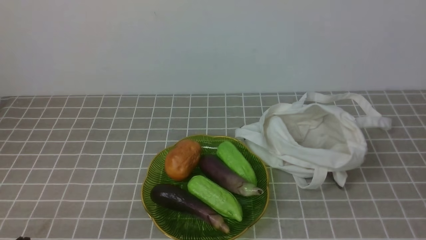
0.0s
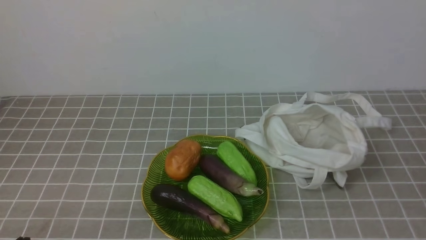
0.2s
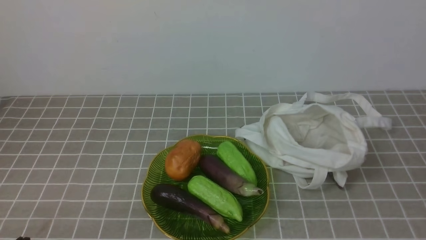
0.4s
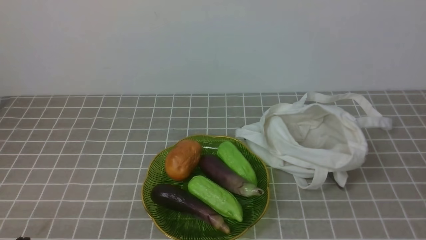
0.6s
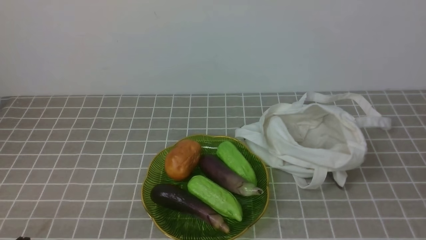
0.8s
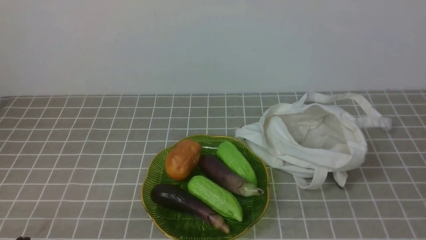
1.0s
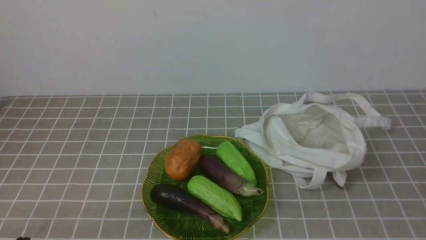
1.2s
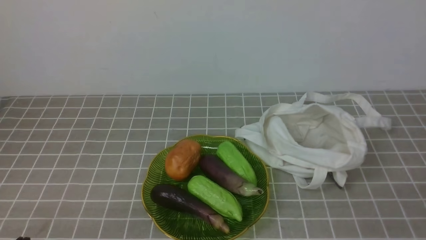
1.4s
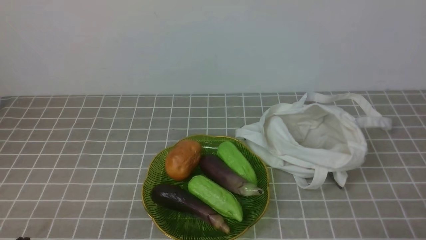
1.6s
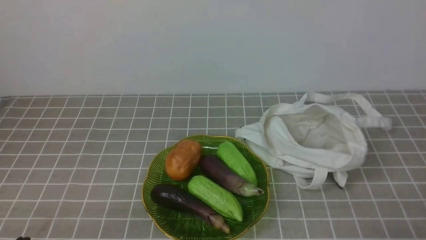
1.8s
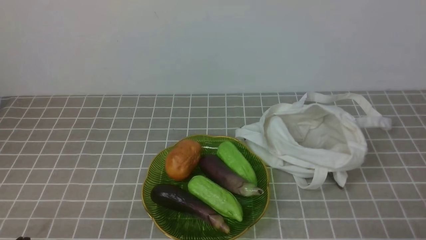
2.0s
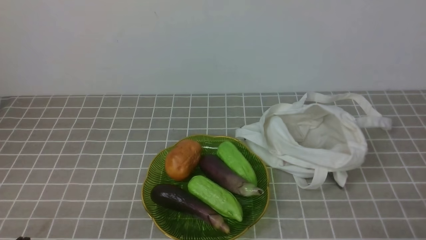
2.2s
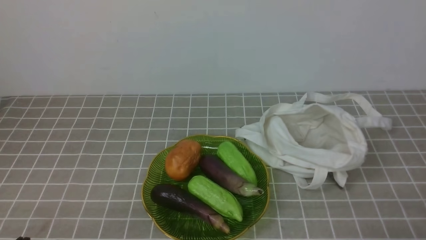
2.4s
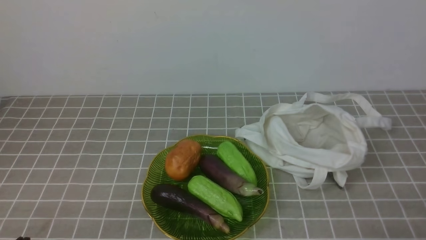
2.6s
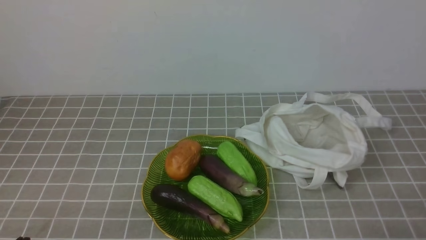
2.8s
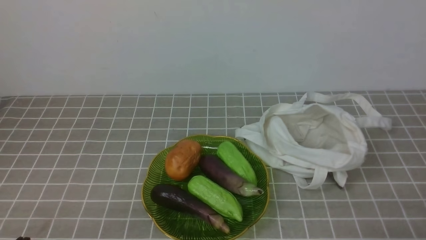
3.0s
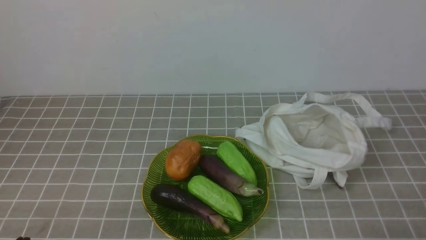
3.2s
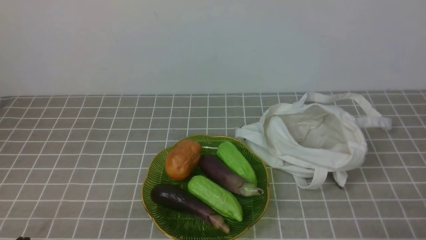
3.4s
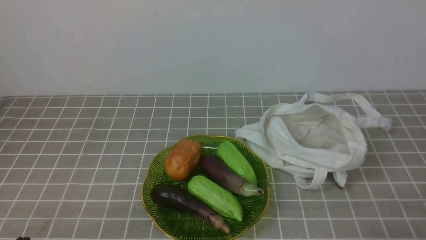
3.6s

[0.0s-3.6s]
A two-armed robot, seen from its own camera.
Task of the whole recording: take vegetables from bag on grey coffee tablecloth place on plate.
1.8s to 3.6s: Both grippers stay about where they are.

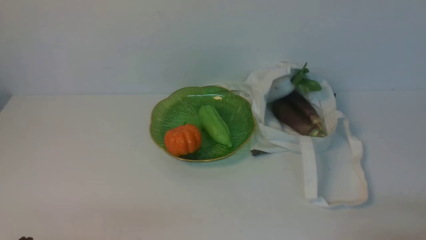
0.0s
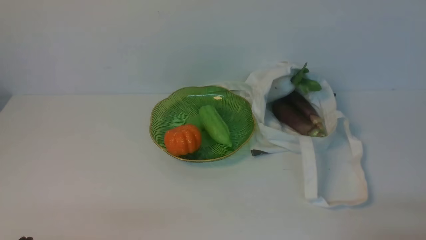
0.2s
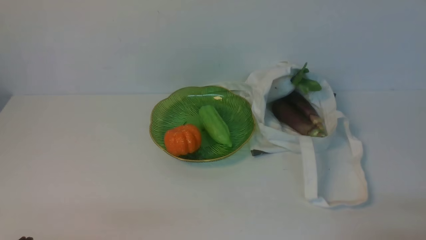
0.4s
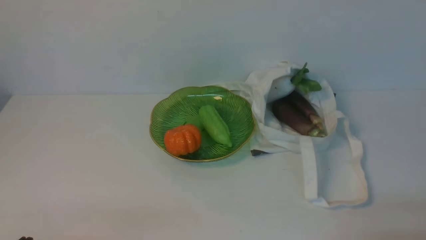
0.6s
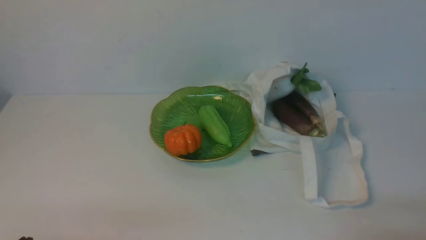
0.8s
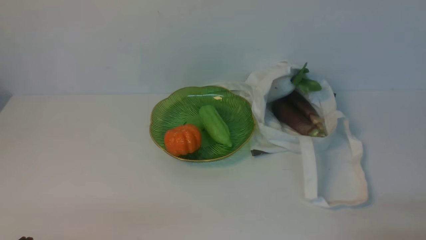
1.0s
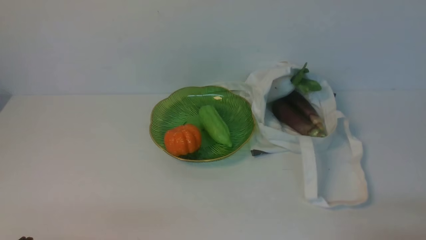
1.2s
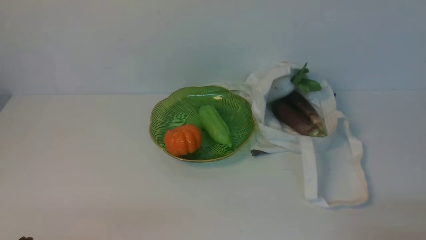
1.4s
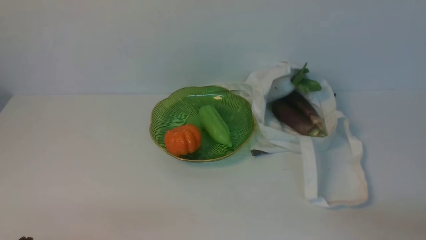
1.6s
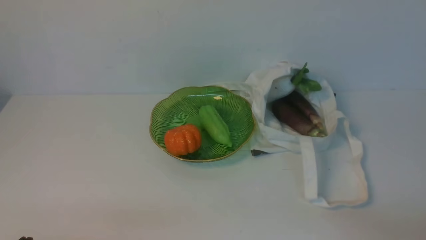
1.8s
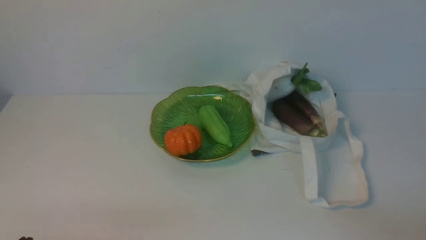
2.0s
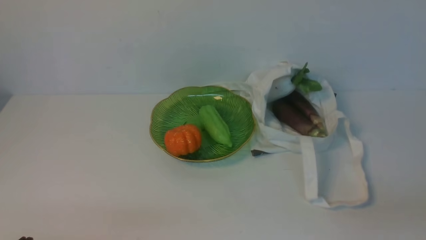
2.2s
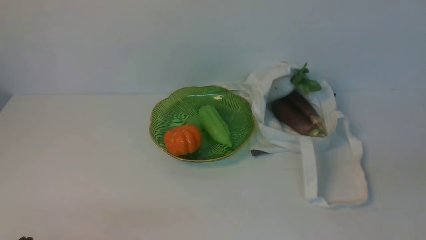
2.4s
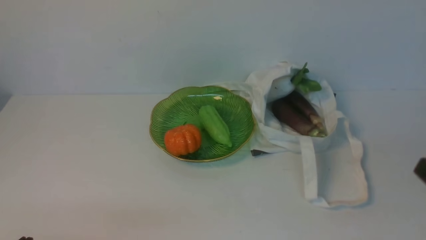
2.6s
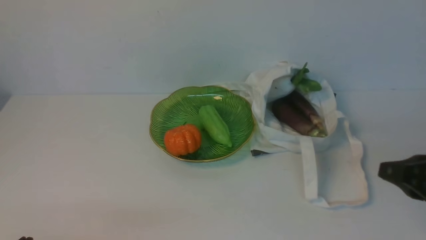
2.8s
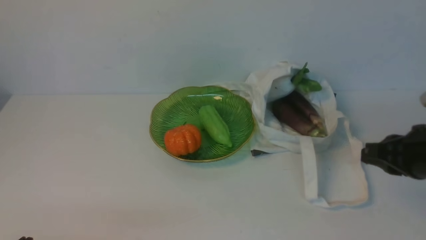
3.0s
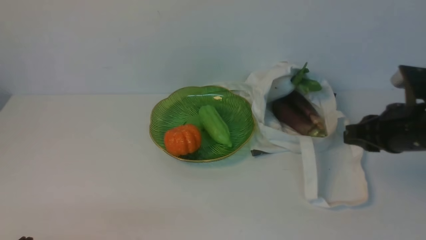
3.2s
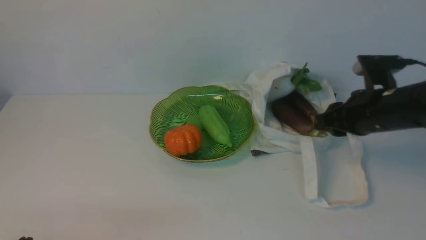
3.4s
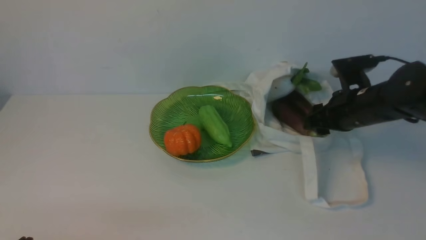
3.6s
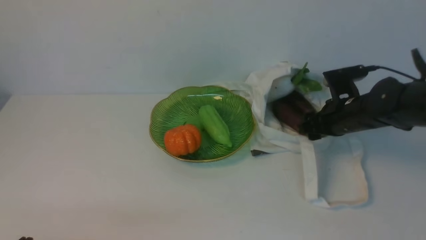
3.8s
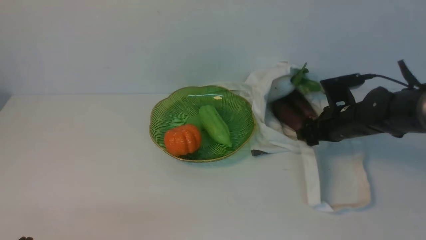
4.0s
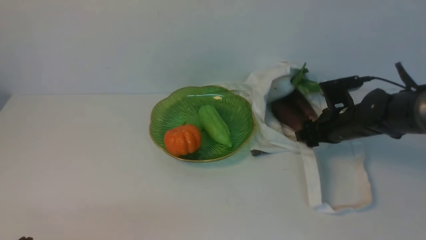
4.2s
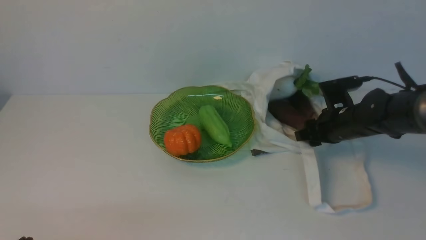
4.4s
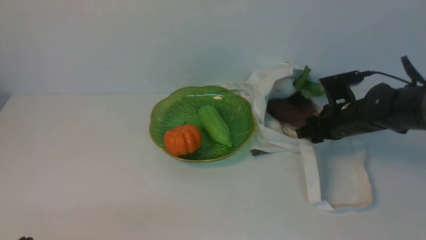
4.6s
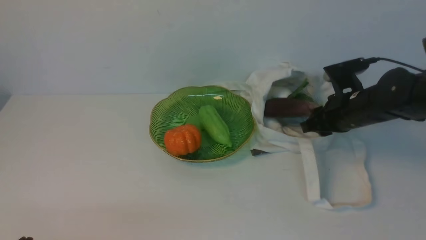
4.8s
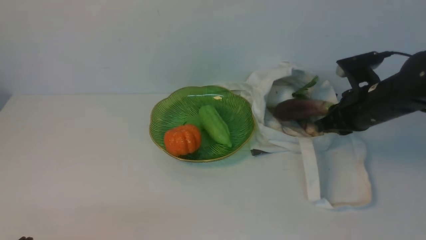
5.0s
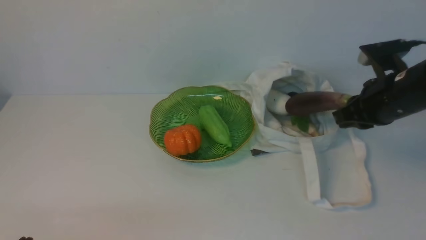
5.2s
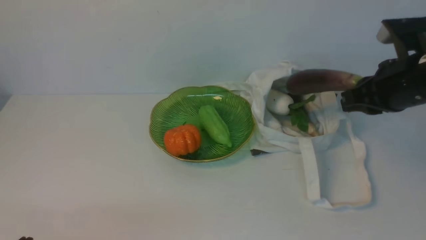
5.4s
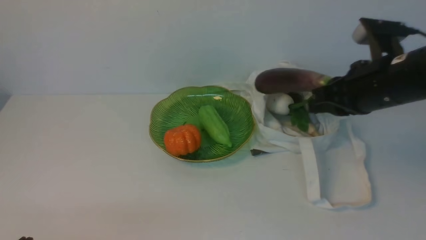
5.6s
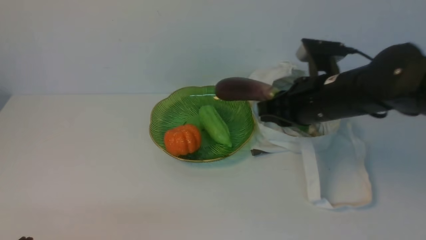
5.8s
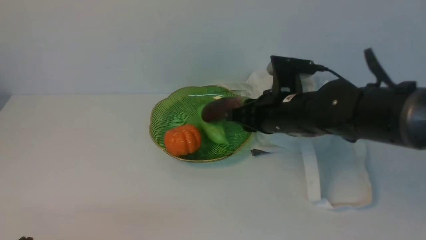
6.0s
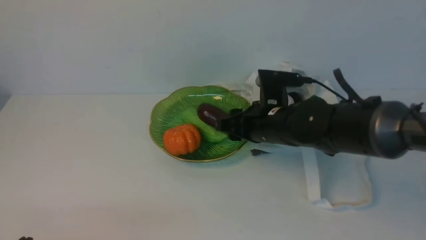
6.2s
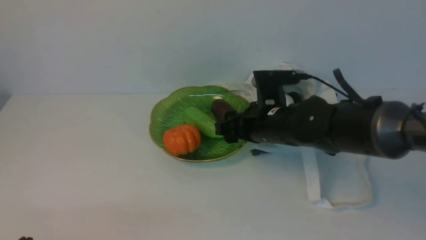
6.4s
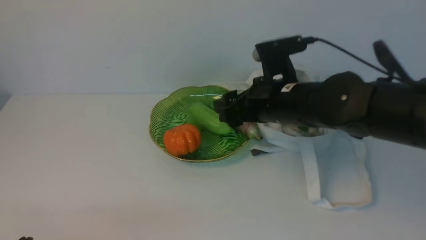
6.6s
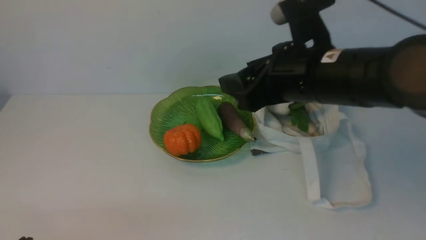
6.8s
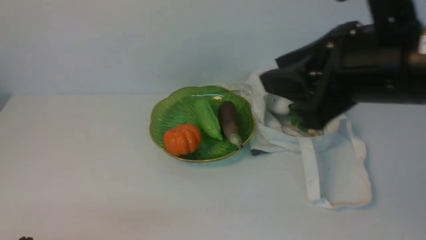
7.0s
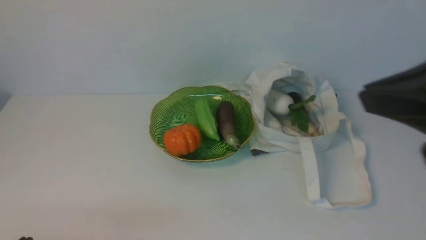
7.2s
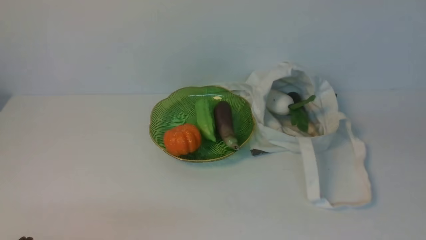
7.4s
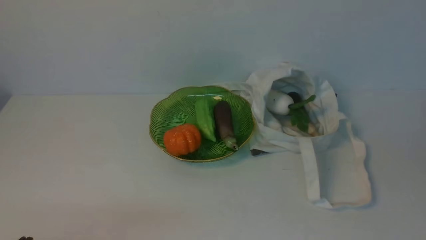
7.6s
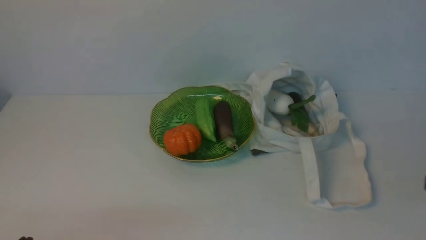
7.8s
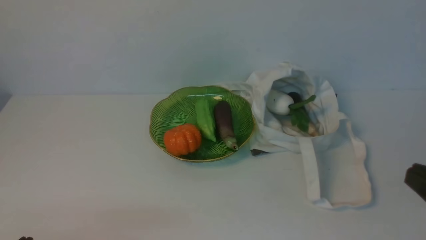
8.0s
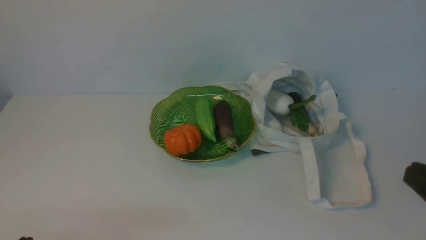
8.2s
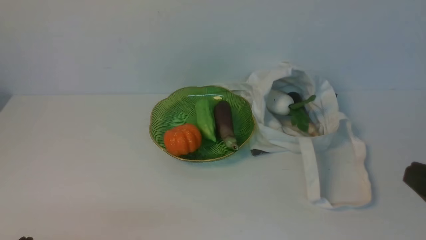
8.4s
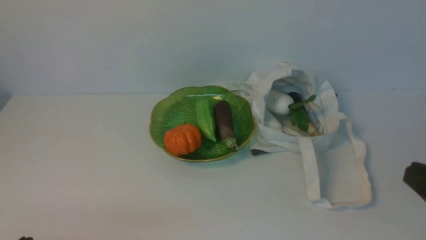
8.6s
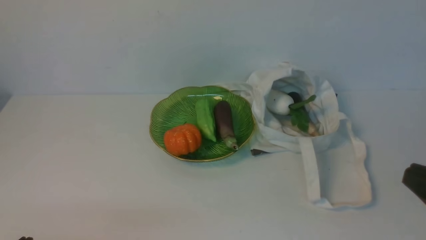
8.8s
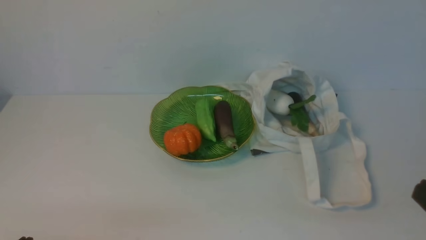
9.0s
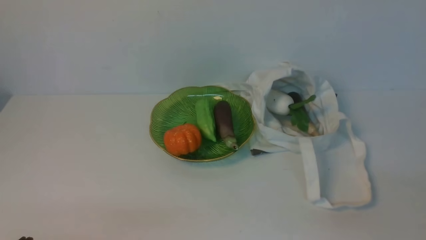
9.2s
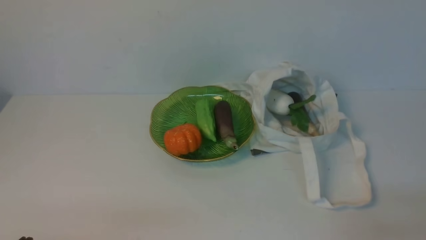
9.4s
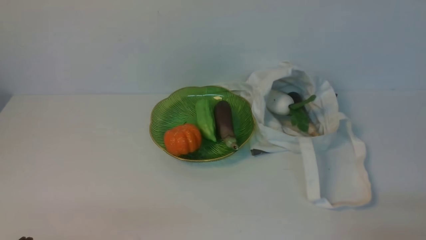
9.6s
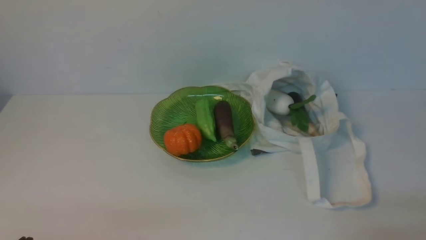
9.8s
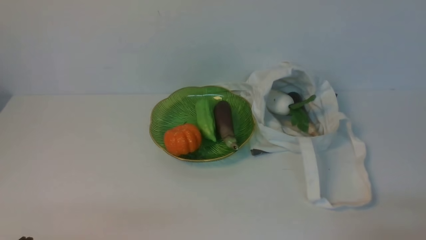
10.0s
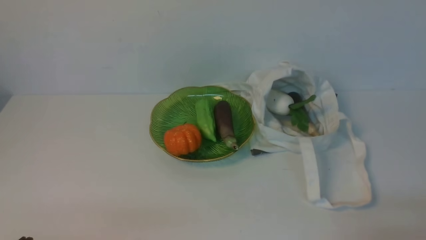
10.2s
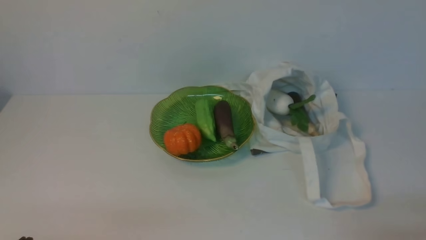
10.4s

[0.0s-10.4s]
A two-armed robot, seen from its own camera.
Task of the whole recording: take vegetables from cloth bag on white table place on plate.
Step, 0.0s to 4.2s: Grasp the eggplant with right gripper.
Step, 4.4s to 6.6s: Place the eggplant on the plate with right gripper.
1.4s to 3.0s: The right gripper goes some 20 cm forward and upward.
3.0s to 4.4s: The right gripper is displaced forward and downward by approximately 20 cm, and opens up.
4.4s to 6.0s: The right gripper is displaced to the left, upward and backward by approximately 15 cm.
6.0s to 7.4s: The right gripper travels backward, upward and to the right by about 35 cm, and closes.

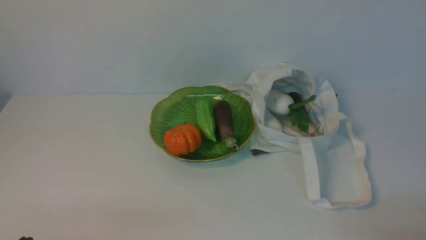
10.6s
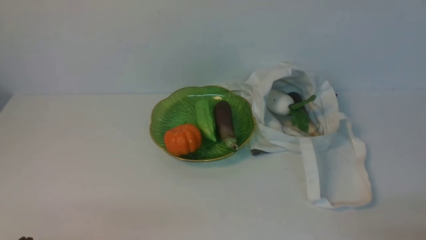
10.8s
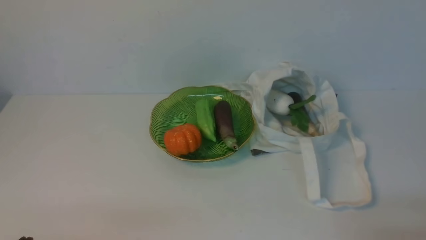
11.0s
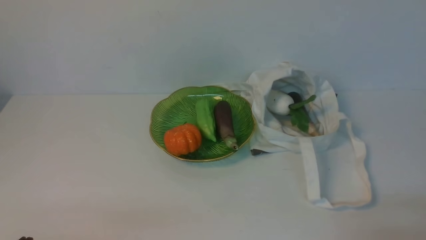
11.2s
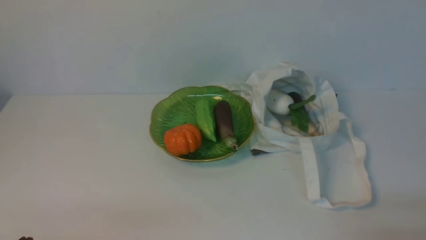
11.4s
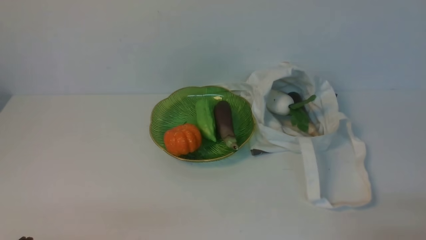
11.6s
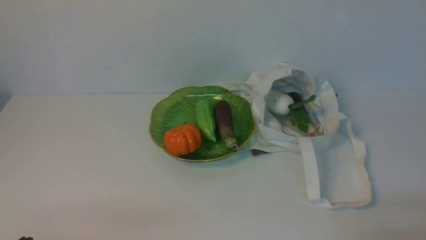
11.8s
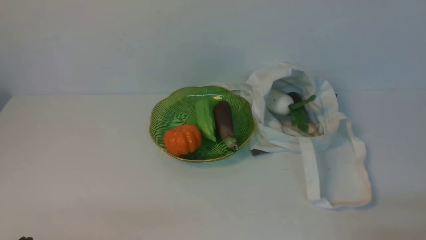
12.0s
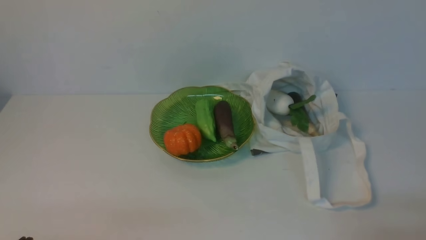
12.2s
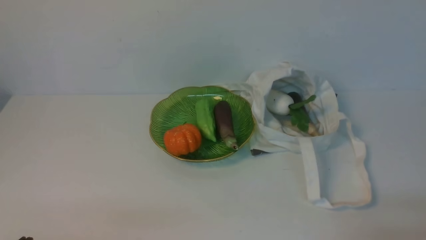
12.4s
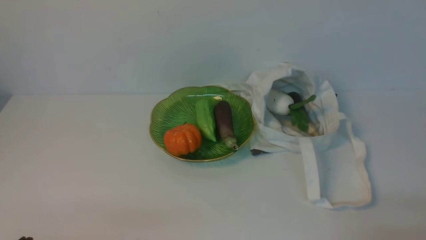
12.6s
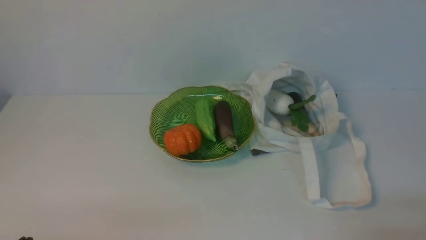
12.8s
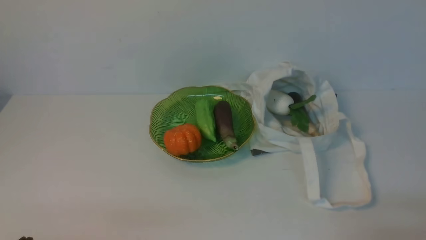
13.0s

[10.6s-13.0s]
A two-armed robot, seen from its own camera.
Task of the whole recording: take vegetables from cloth bag on white table place on plate.
11.8s to 13.0s: Both grippers stay put.
